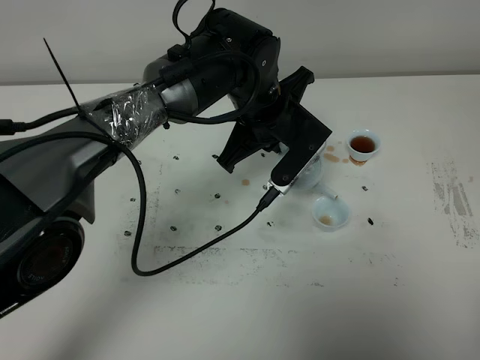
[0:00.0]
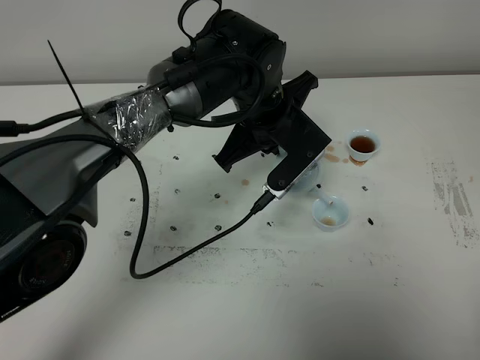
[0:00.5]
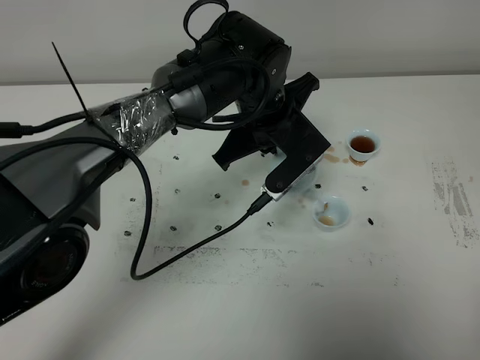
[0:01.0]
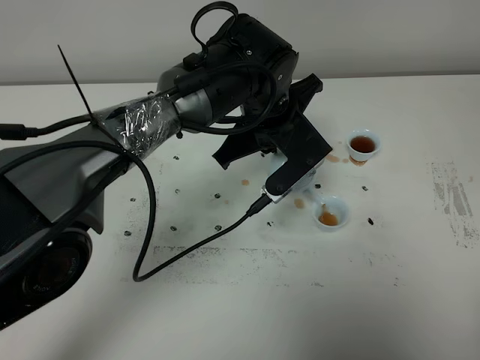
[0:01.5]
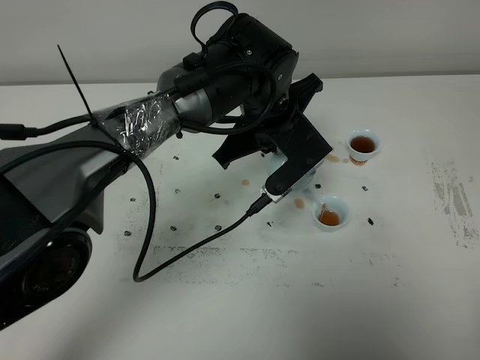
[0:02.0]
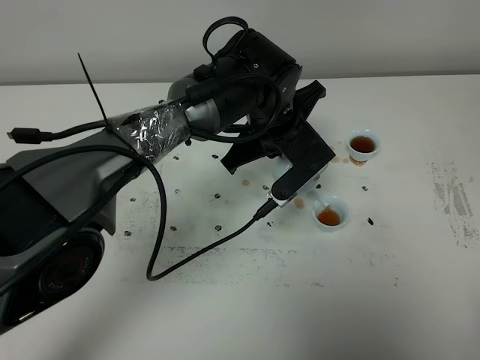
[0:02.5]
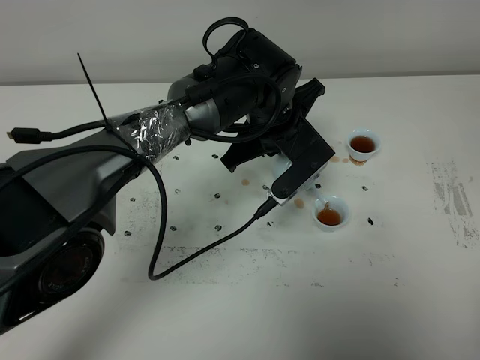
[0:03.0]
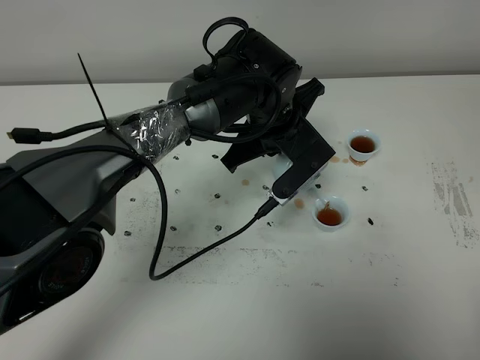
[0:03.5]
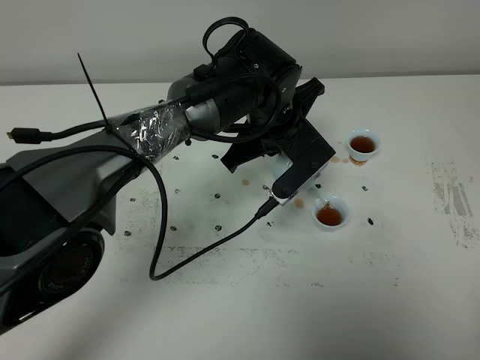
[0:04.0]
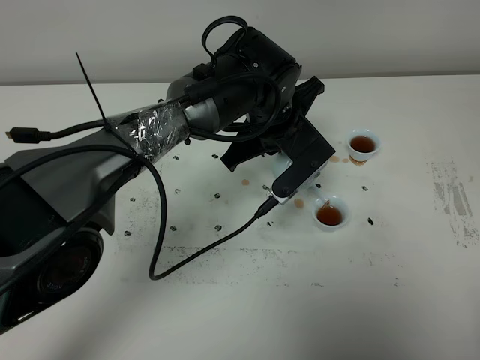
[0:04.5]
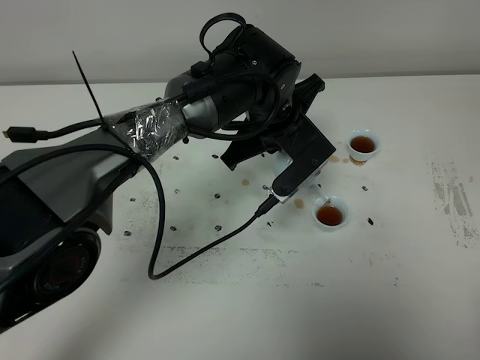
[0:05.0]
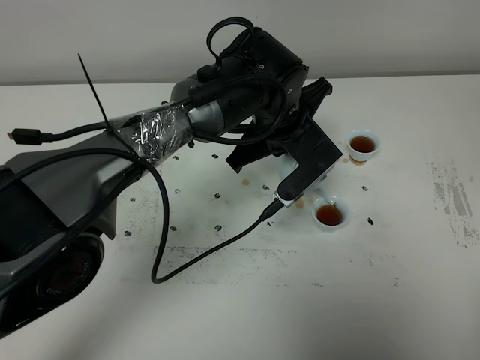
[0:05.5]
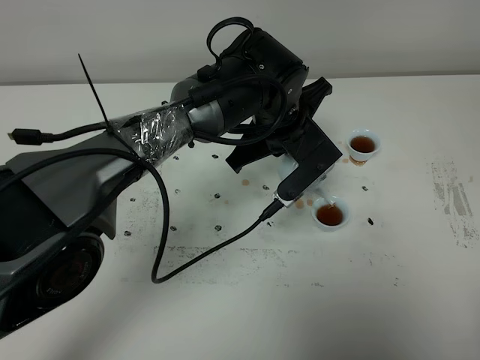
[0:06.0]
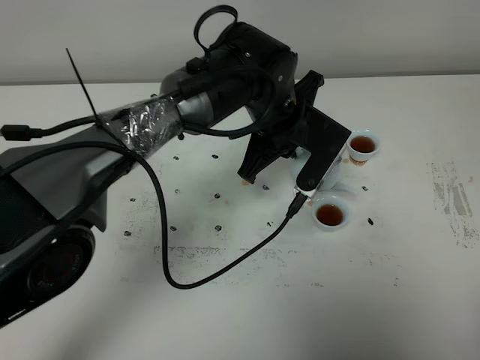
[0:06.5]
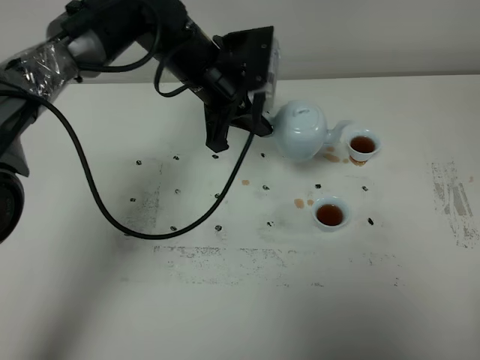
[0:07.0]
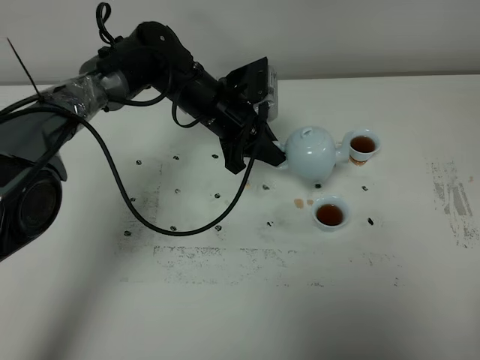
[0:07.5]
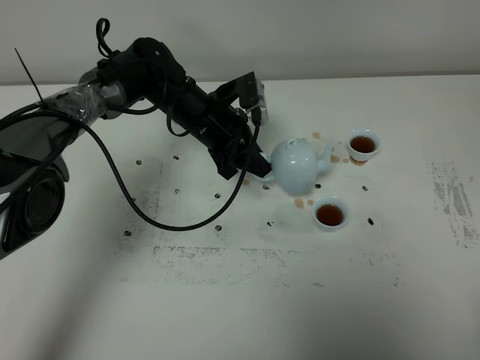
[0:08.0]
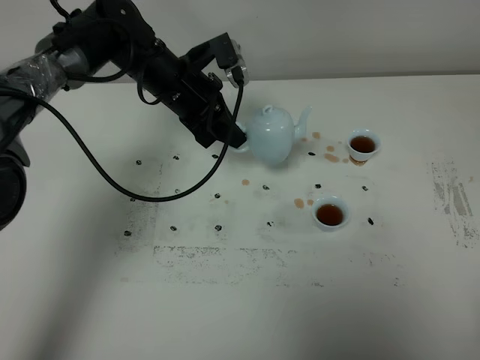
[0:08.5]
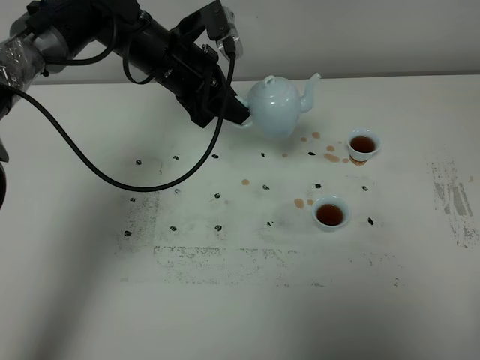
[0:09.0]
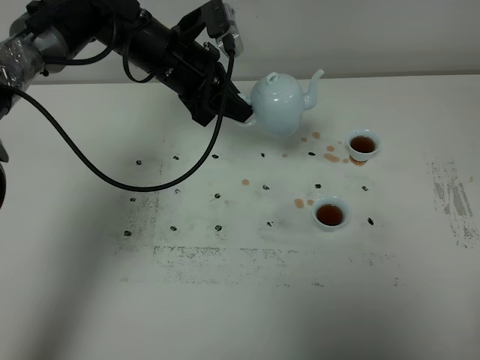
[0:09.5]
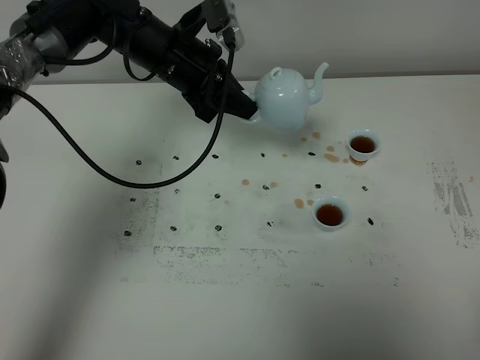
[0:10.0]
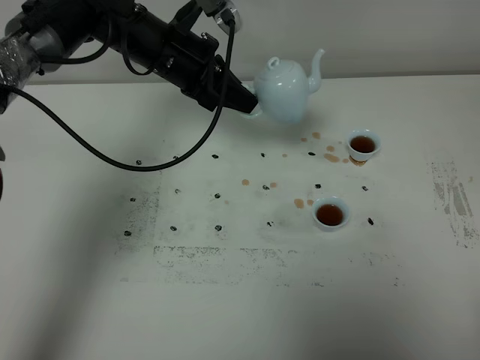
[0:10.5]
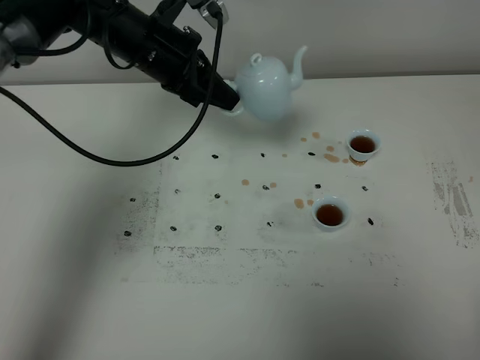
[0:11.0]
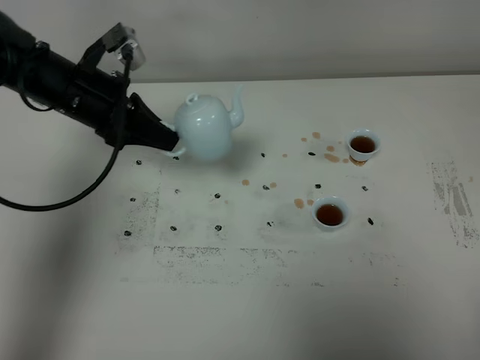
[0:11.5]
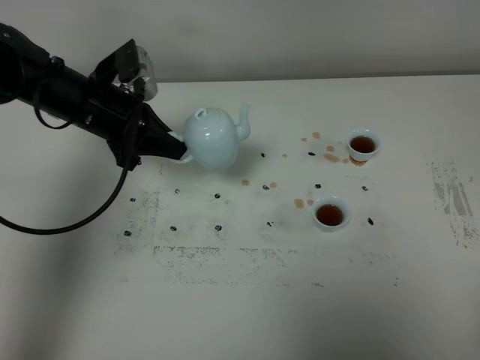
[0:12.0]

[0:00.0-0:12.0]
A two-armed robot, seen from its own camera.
Task of the whole recording: grasp the blue porcelain teapot and pour the tea into the two blue porcelain teacups one by one, put the blue porcelain teapot back in its original place.
Step, 0:00.0 to 0:06.0: Pour tea into the teacup with the left gripper.
0:00.0 to 0:04.0: There are only small adjustments of the grippers.
0:04.0 to 0:06.0: Both grippers stay put.
0:06.0 to 0:08.0: The left gripper heads to the left, forward and downward, covering roughly 15 cm.
0:08.0 to 0:10.0: The left gripper travels upward by approximately 10 cm.
0:10.0 to 0:12.0: The left gripper travels to the left and backward by roughly 10 cm.

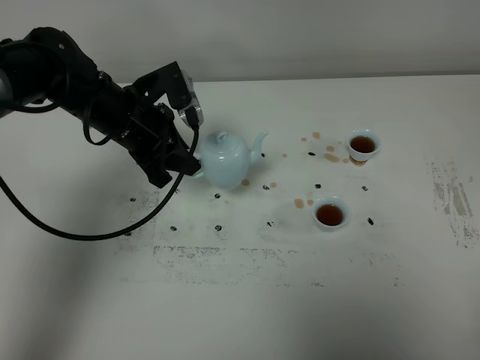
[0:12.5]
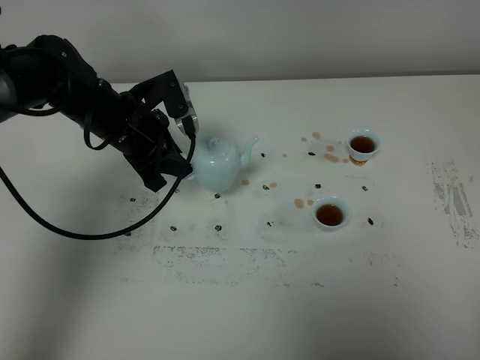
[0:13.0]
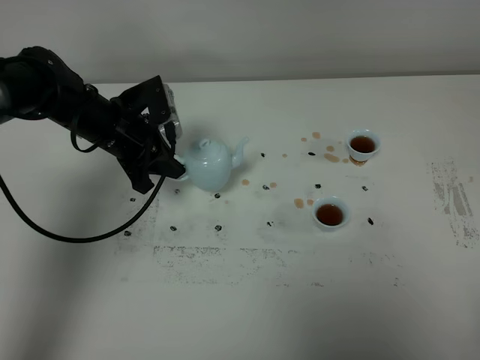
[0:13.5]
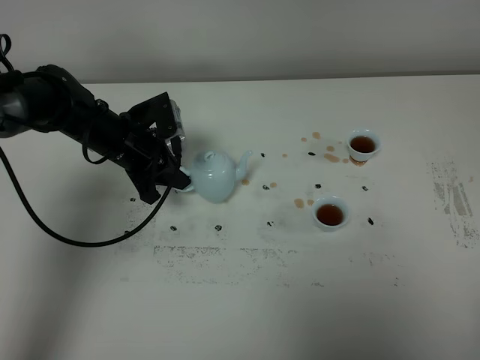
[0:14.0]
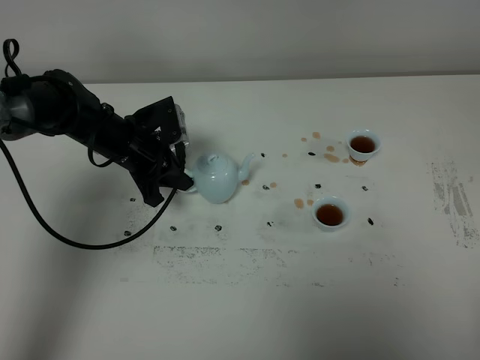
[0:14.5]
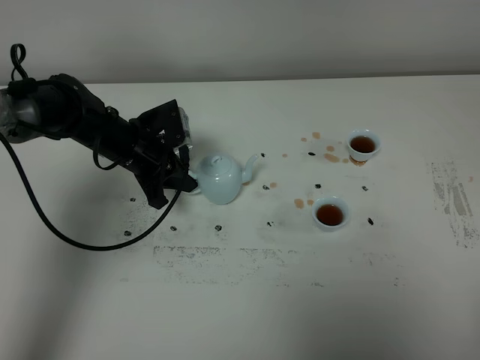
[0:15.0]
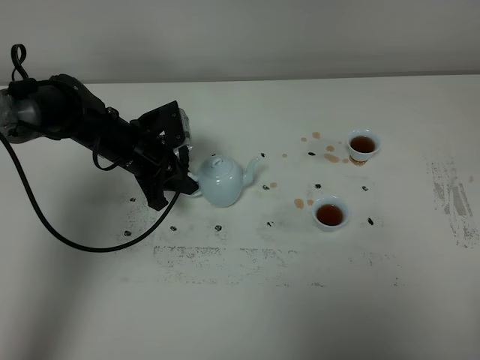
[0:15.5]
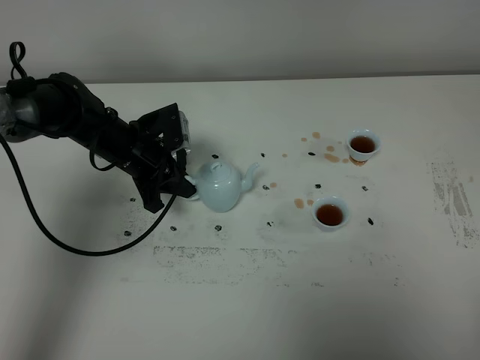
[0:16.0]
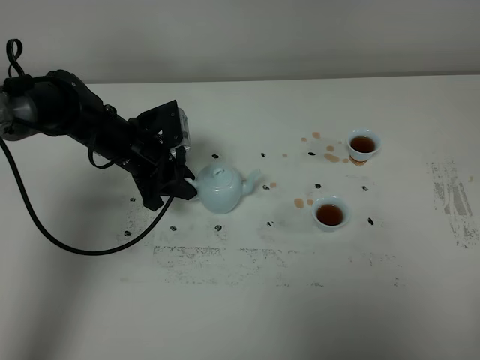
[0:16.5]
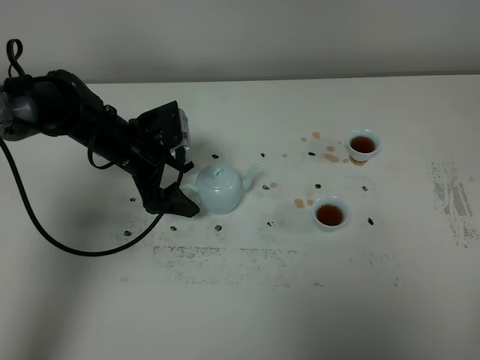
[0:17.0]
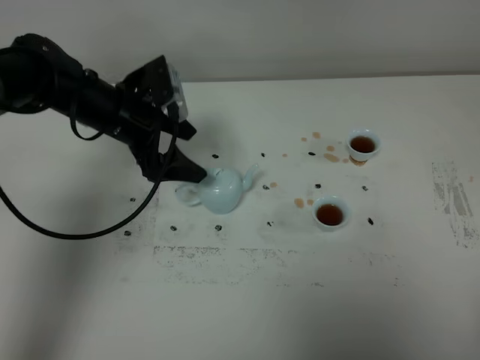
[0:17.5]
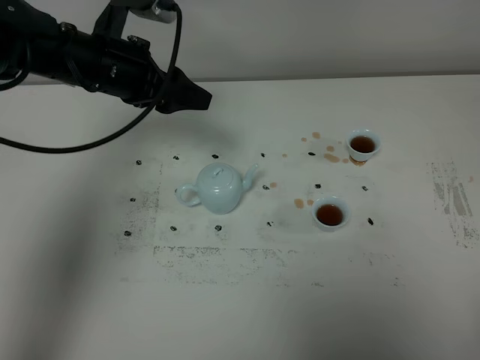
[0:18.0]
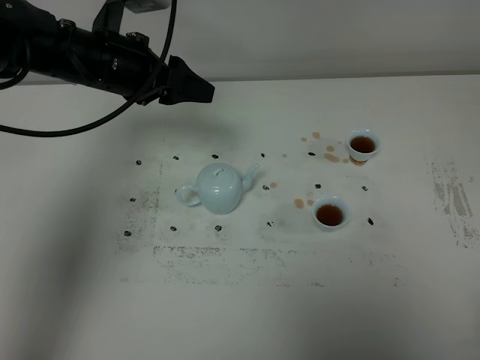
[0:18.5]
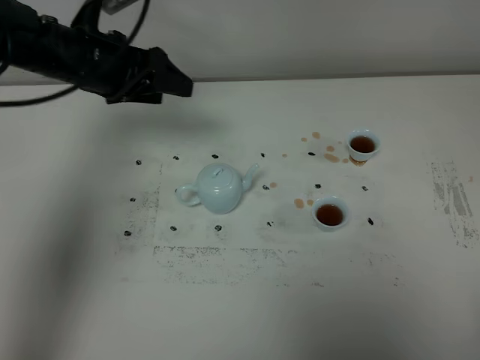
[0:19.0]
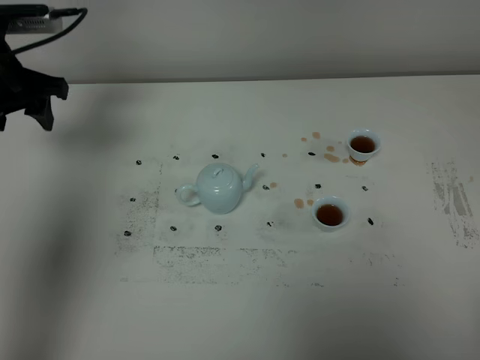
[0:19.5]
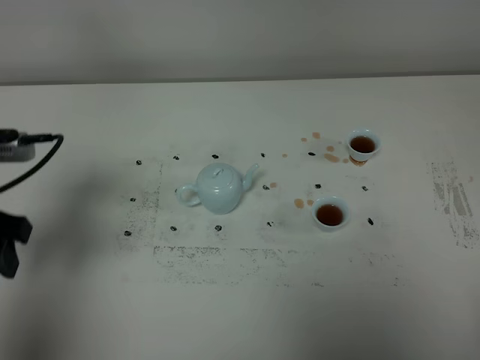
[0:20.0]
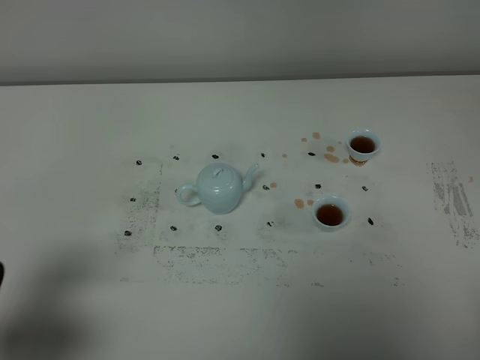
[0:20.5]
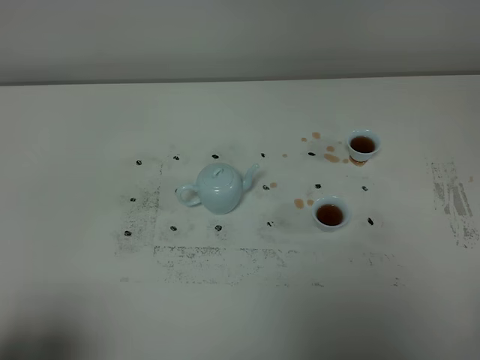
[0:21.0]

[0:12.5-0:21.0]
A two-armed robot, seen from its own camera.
Task of the whole recording: grasp the blue porcelain teapot and pour the tea into the two blue porcelain teacups one by one, put the blue porcelain teapot back in its original place.
0:12.5 to 0:14.5: The left gripper shifts roughly 10 cm downward.
0:14.5 to 0:16.5: The left gripper opens its fingers.
0:16.5 to 0:19.0: The left gripper travels upward by some 15 cm, and opens up.
0:19.0 to 0:21.0: The left gripper is displaced backward by some 40 cm.

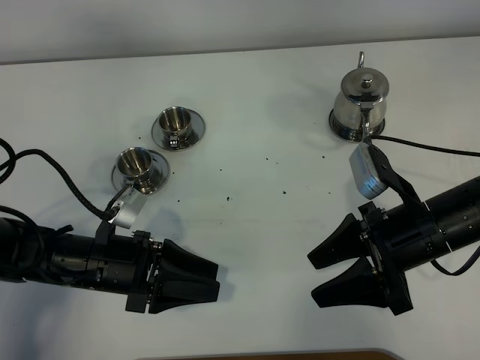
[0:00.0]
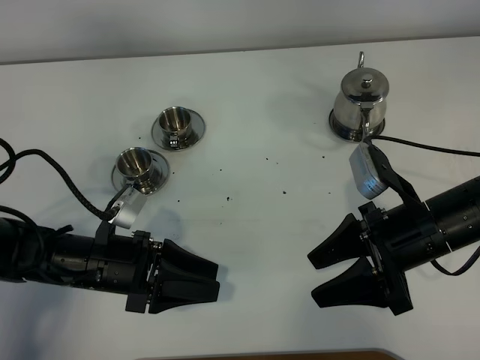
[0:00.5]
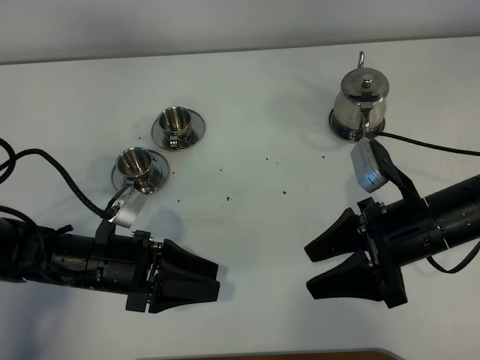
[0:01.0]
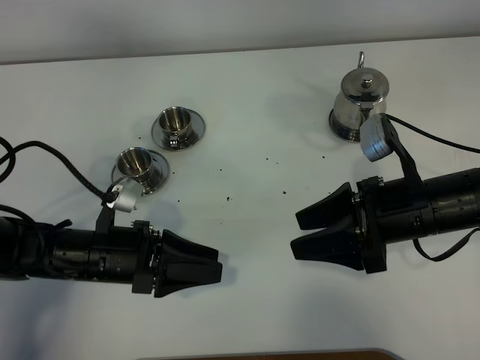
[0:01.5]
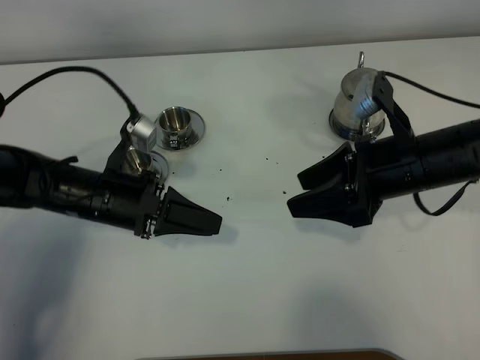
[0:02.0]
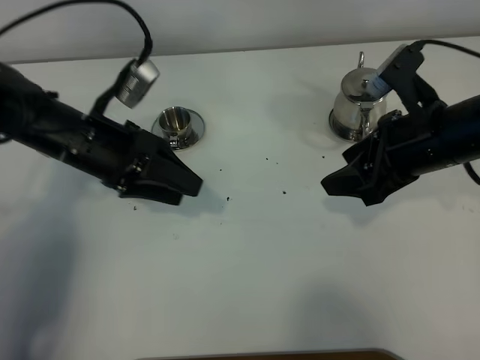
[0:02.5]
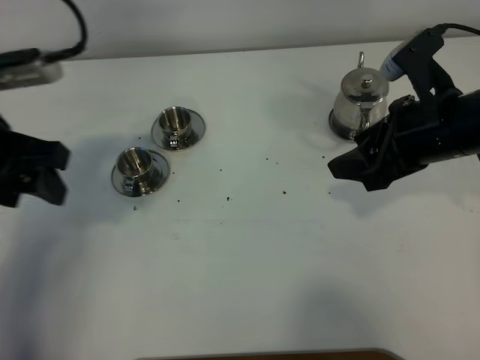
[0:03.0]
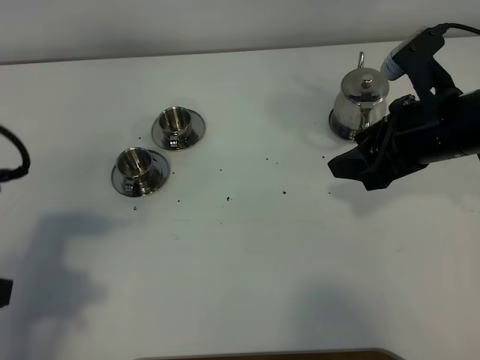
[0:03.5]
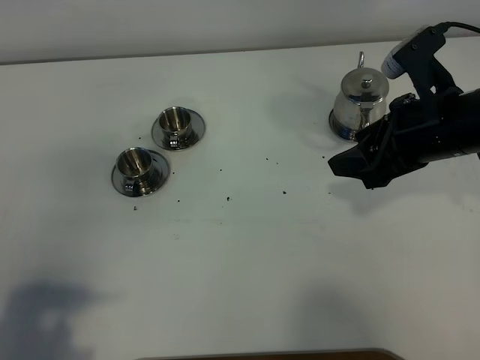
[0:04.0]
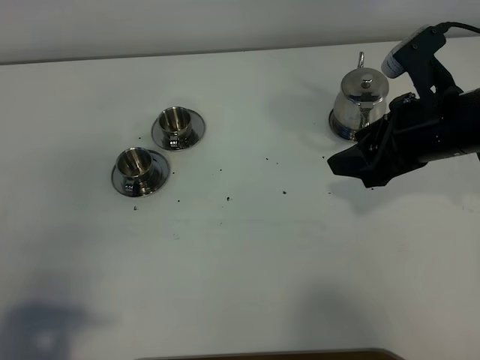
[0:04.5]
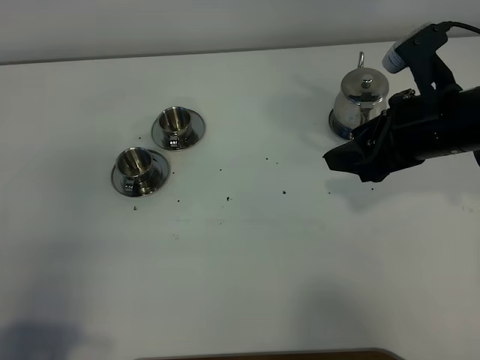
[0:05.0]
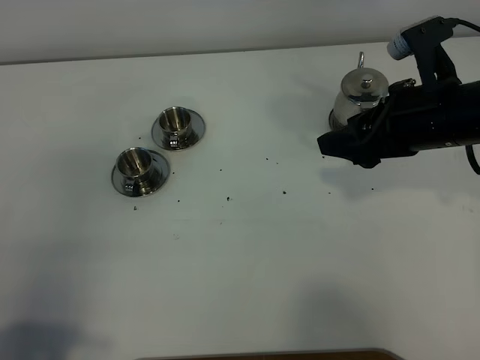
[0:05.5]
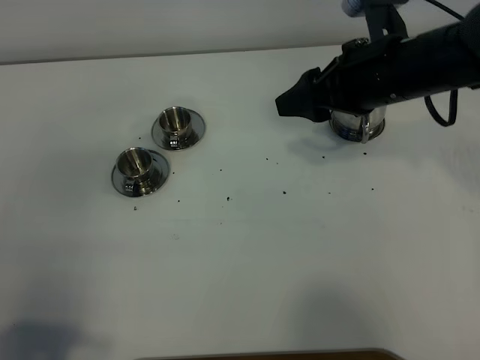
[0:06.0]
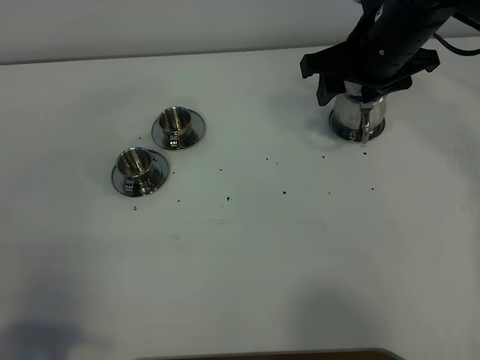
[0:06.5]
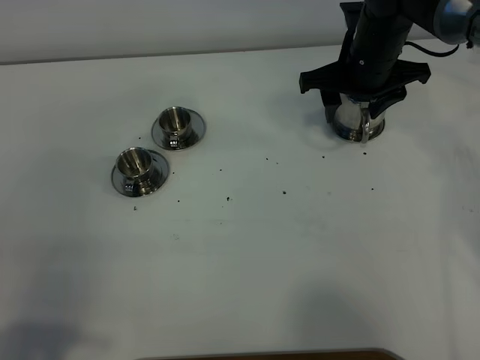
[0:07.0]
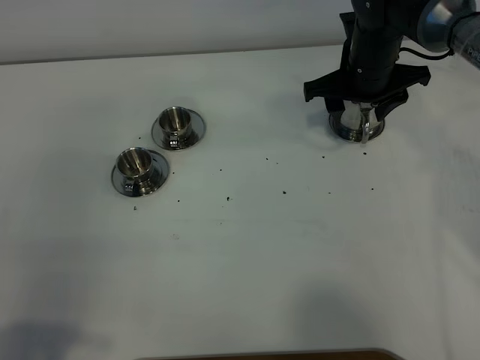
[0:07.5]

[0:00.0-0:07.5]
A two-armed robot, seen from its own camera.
Task of the whole recording: grasp the stainless steel teapot and pour the tea into the two stainless steel teacups one by one, put the stainless steel teapot back in its original place.
0:00.0 to 0:02.0: Both grippers travel together forward, roughly 5 cm.
0:02.0 to 0:04.0: The left gripper moves backward, upward and to the left, about 30 cm; the right gripper shifts by approximately 5 cm.
0:04.0 to 0:05.5: The grippers move only a little.
0:05.5 to 0:07.5: The right gripper is displaced forward and to the left by approximately 15 cm.
